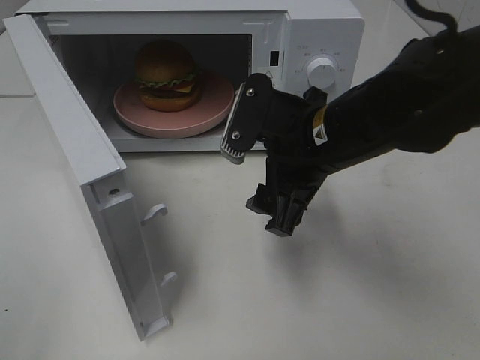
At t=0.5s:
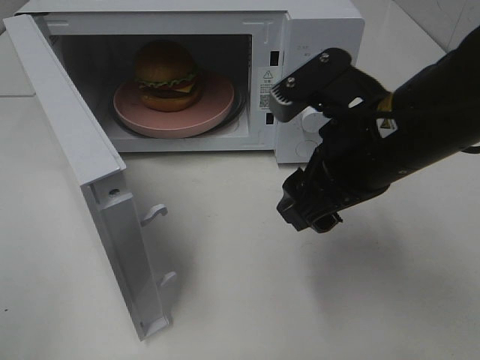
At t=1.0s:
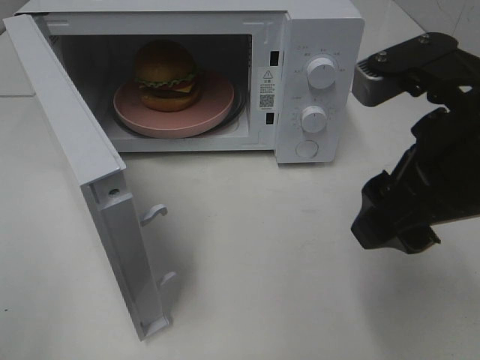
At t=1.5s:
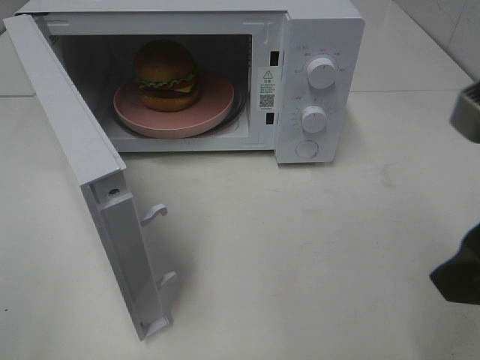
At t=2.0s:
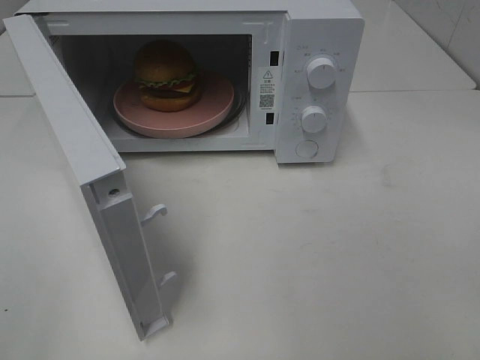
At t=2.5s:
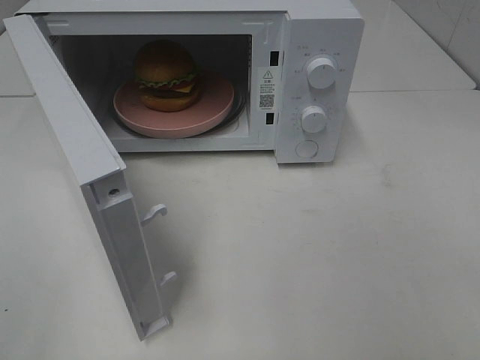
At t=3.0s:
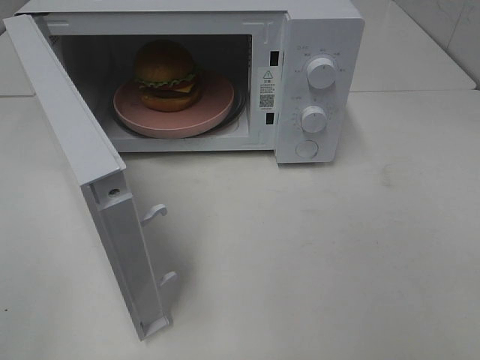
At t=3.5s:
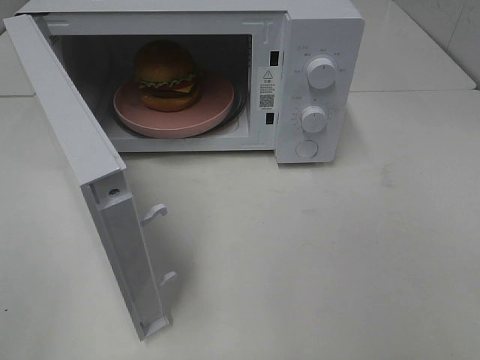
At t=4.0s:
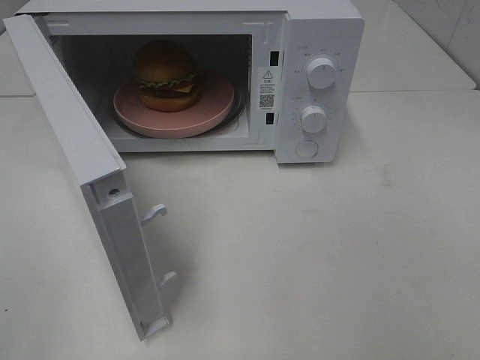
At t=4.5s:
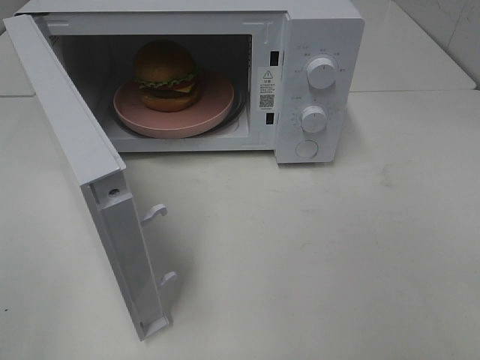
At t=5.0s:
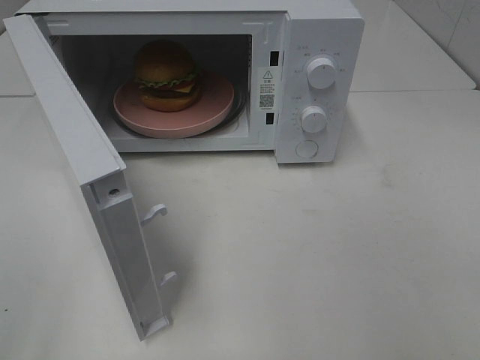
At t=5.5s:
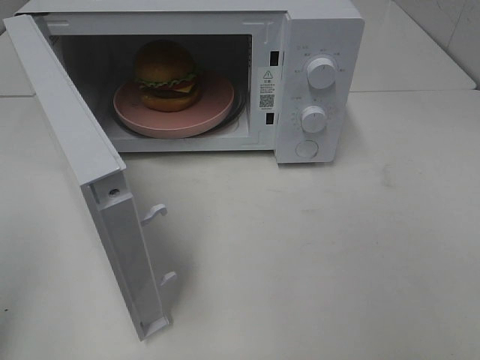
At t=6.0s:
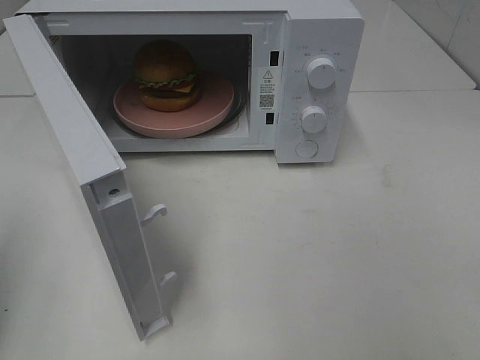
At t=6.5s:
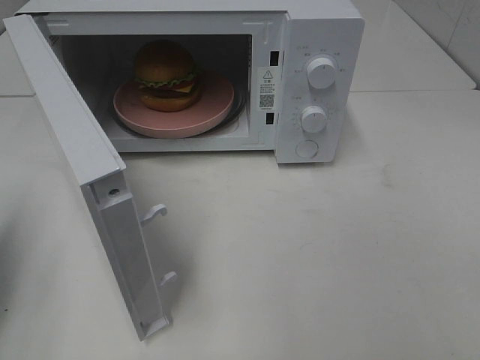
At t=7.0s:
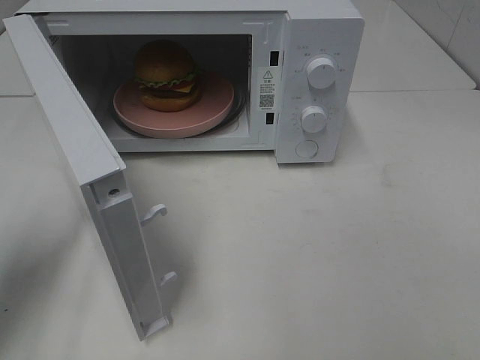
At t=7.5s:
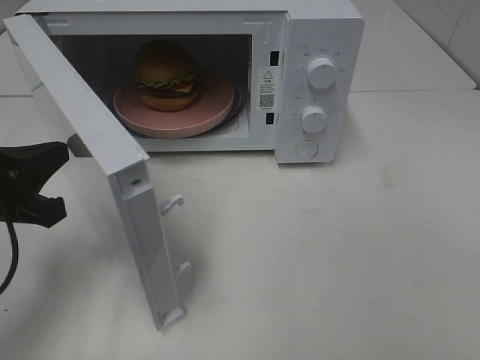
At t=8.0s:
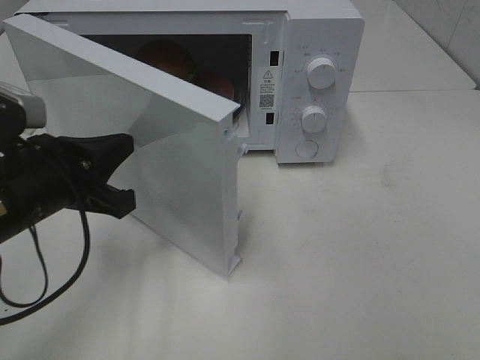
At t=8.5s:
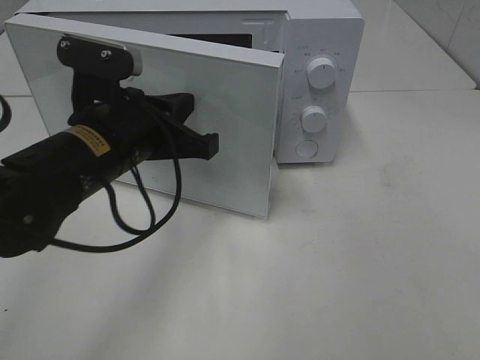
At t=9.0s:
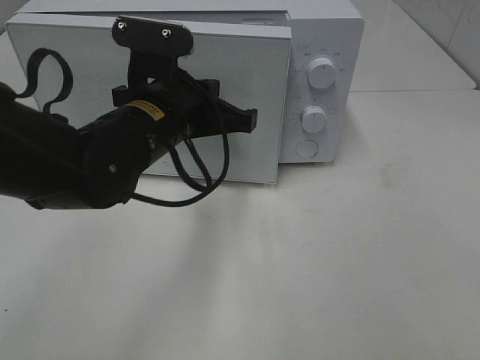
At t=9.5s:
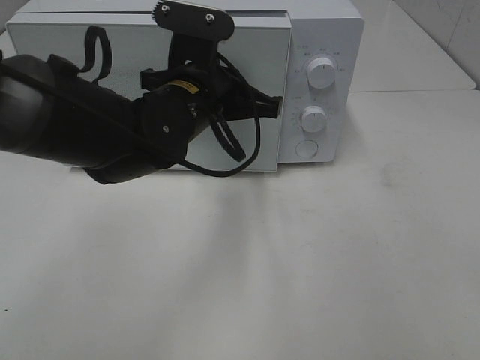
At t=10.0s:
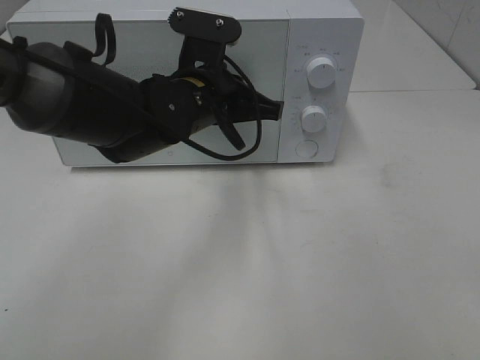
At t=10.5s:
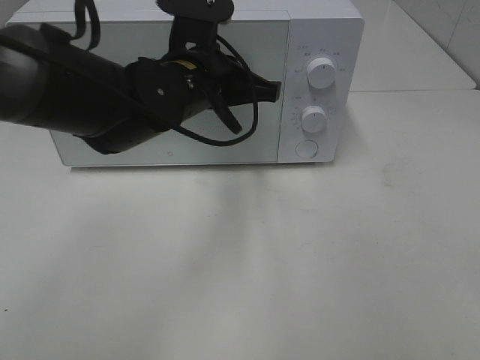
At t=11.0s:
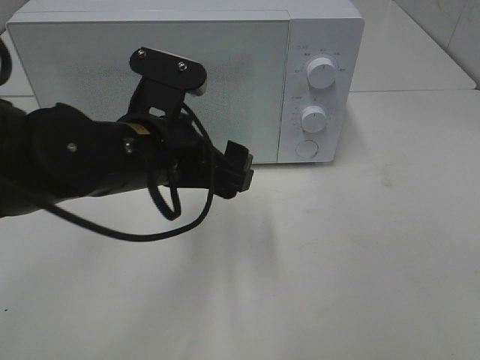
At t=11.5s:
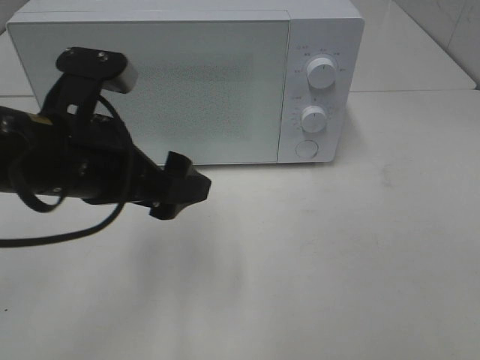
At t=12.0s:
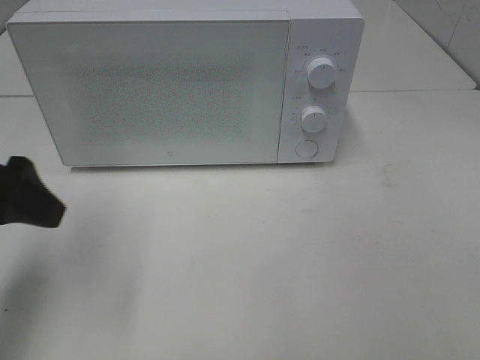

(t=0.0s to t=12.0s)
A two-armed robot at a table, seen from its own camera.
Task of the whole recording: Heat the burger.
Step, t=0.0s - t=11.0s: Left hand: close the microwave door.
t=0.0s - t=2.0s: The right gripper heads backward and to the right, covering roughly 25 cm.
t=6.0s - t=8.0s: The left gripper travels to the right, downward and forward by about 20 cm.
t=8.0s - t=10.0s: The left gripper is displaced to the right and forward by approximately 20 cm.
t=10.0s - t=12.0s: The left gripper travels to the left and backward by roughly 25 cm, and opens its fingers.

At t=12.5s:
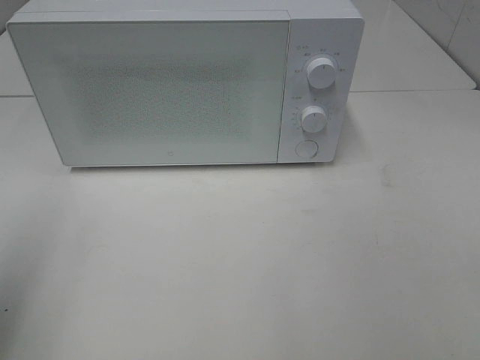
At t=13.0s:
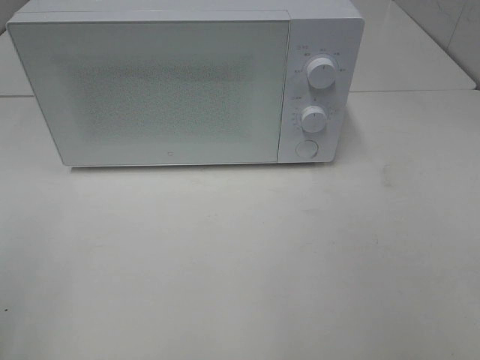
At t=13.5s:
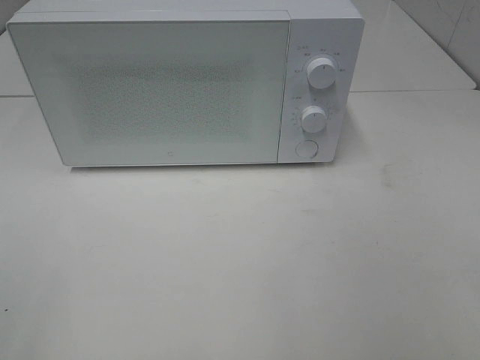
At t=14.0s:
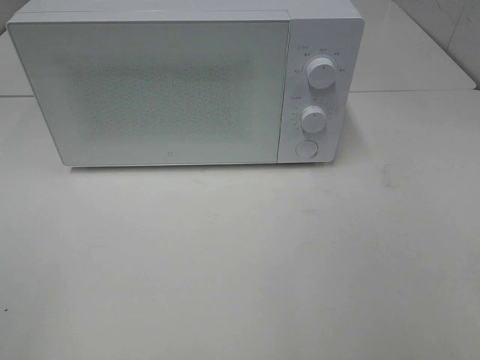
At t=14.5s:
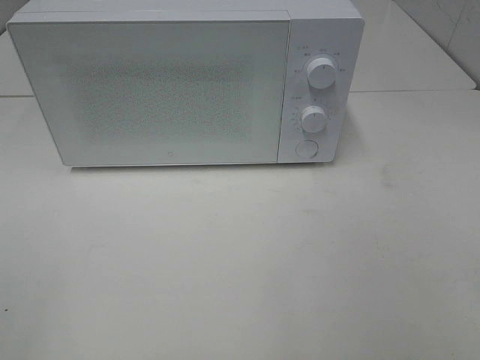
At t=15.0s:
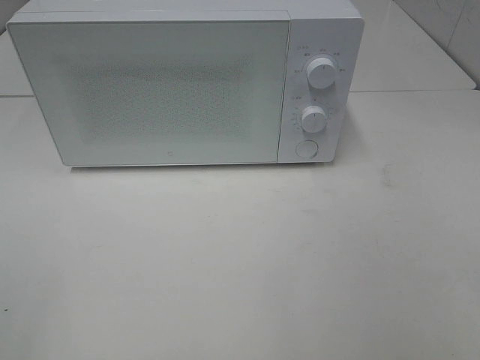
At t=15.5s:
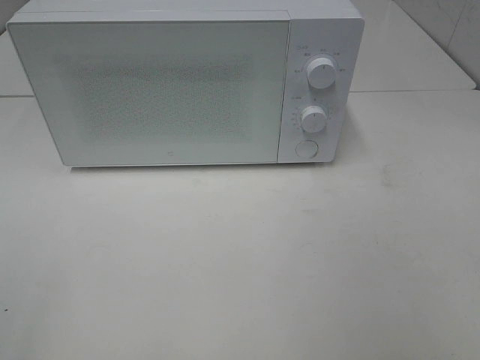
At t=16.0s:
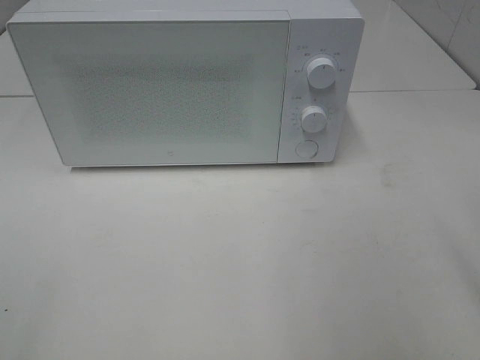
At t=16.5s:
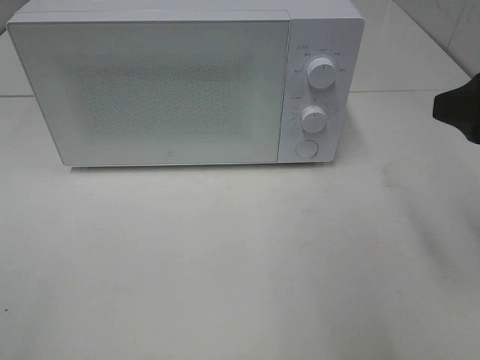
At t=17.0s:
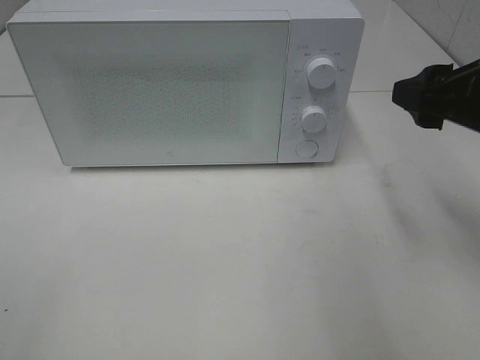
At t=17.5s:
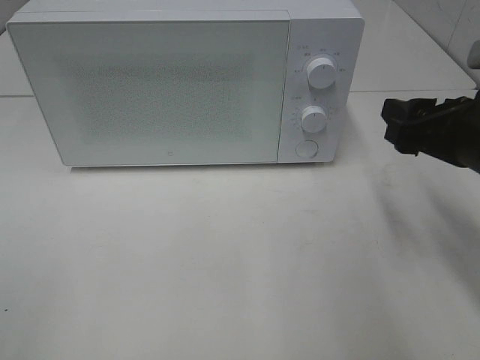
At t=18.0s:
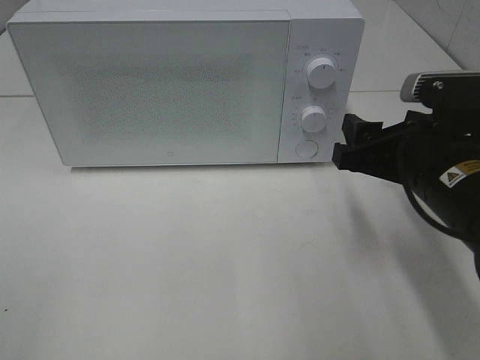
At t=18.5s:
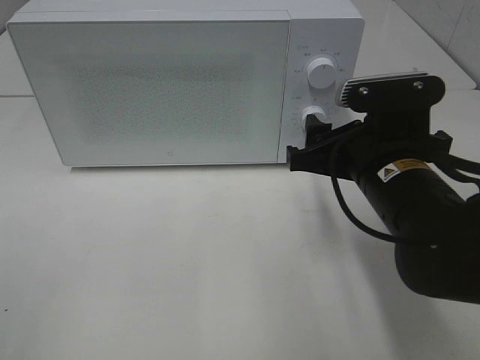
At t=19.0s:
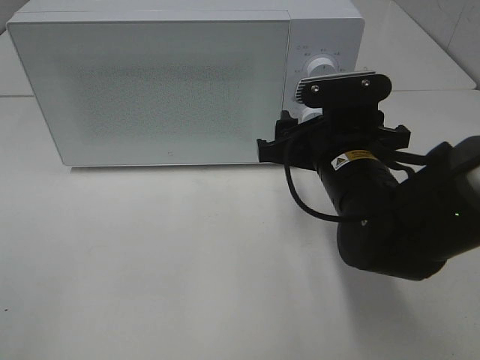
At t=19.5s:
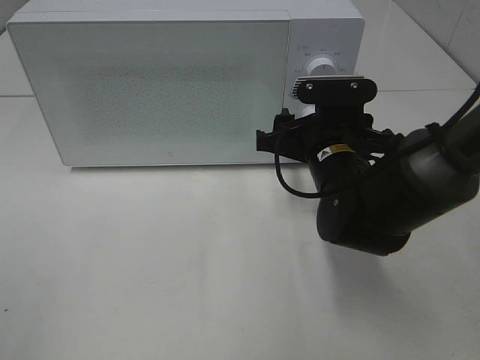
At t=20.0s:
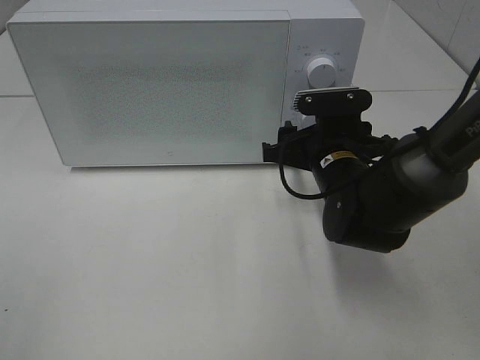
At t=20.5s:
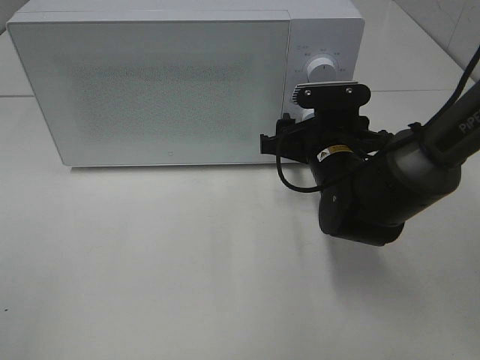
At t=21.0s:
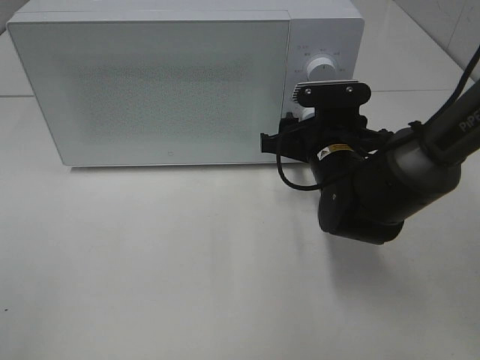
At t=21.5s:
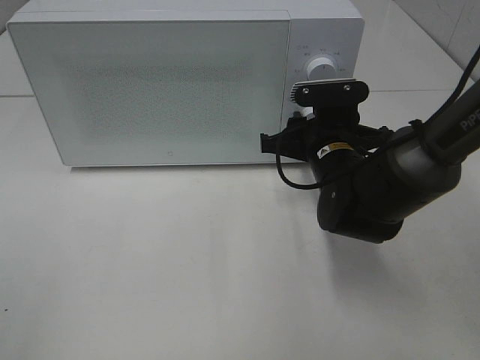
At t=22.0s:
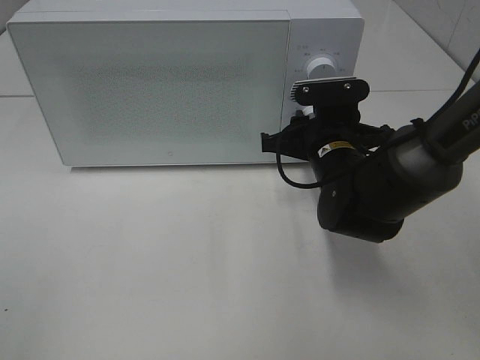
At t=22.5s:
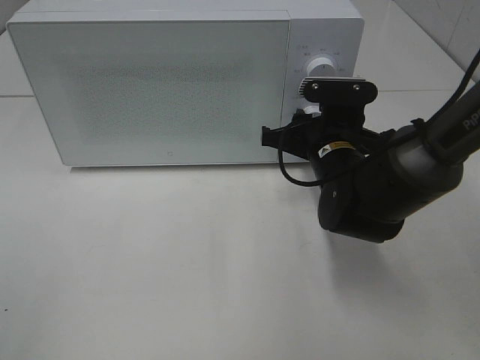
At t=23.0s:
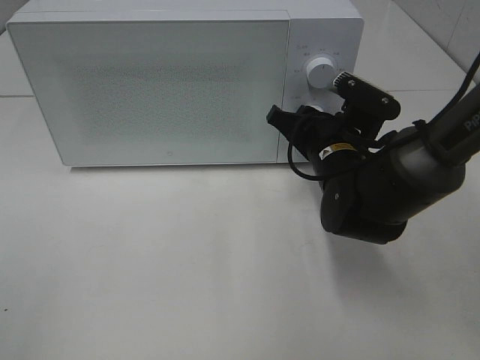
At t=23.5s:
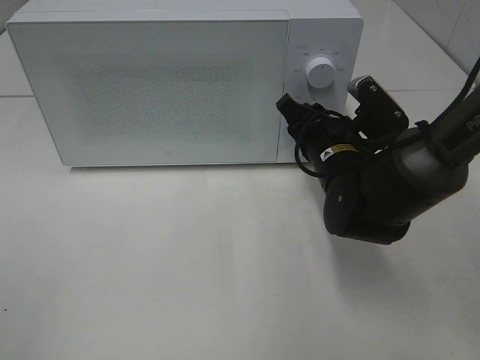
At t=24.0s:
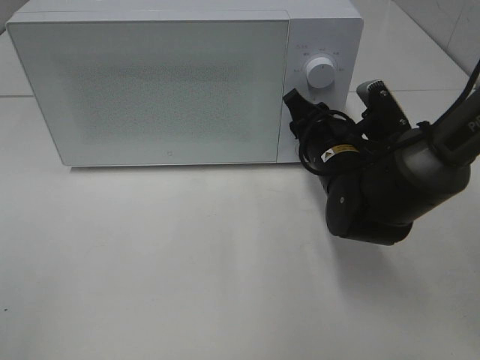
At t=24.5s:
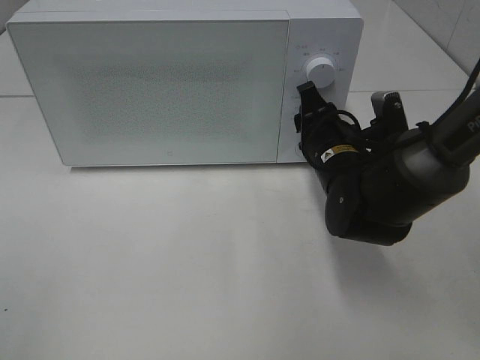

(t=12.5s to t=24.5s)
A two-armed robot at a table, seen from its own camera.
Task of the whole recording: Heat the burger.
t=12.5s - t=14.5s: The left gripper moves backward, about 10 cm.
t=14.5s - t=16.5s: The right gripper is displaced forward by about 20 cm.
t=16.5s - t=18.5s: The right gripper moves downward, to the left and forward, about 15 cm.
t=18.5s - t=20.5s: The right gripper moves forward and downward, roughly 10 cm.
t=20.5s - t=22.5s: The grippers stay close to where they were, moving slightly.

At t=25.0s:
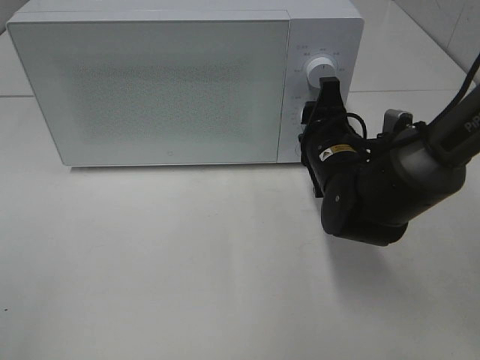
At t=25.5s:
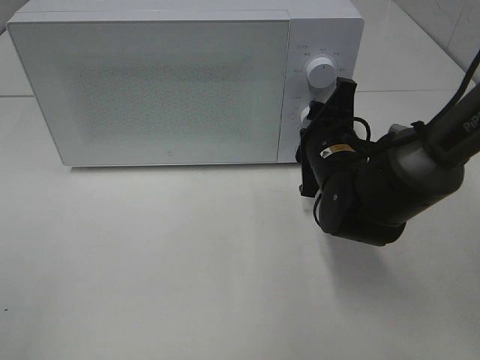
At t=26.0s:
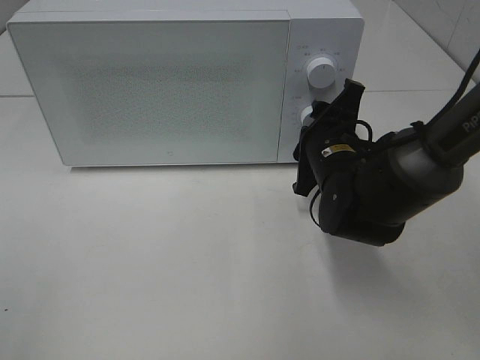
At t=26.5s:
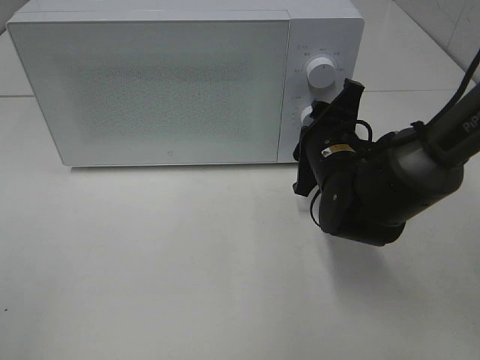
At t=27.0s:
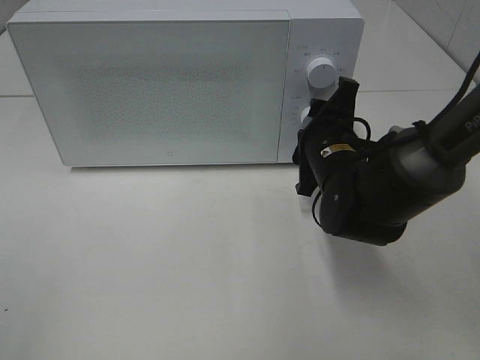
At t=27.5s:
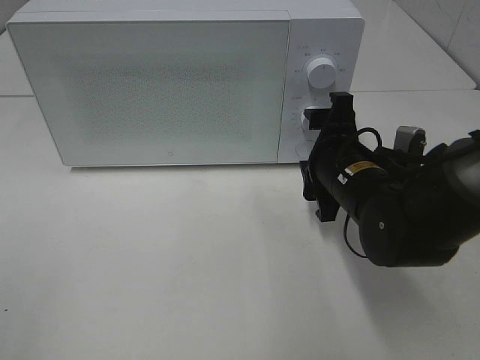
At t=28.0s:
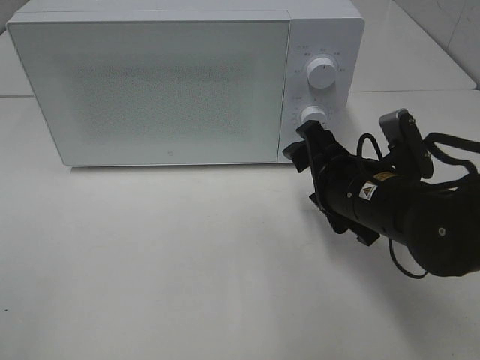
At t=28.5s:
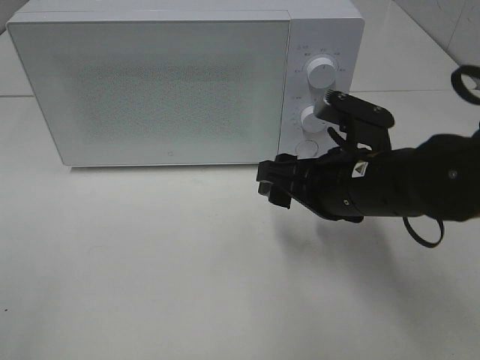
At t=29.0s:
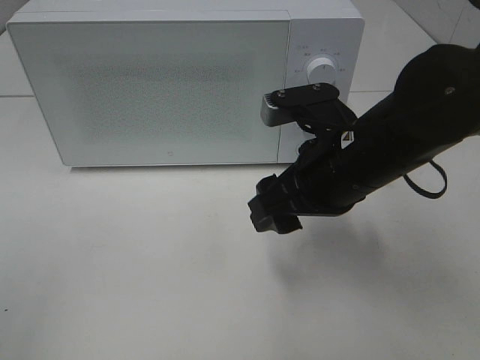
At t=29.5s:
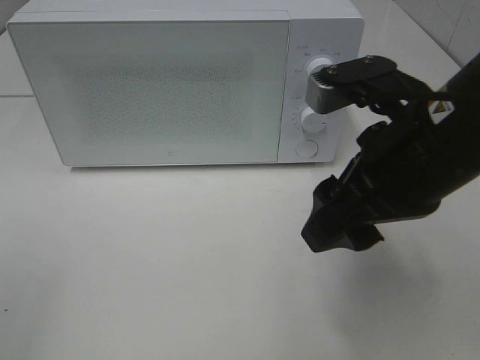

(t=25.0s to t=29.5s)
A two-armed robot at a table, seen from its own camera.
Task of the whole recording: Heat the burger.
Step, t=25.0s - t=27.0s: Right hand: twist timer button.
t=27.0s - t=29.5s: The right gripper goes roughly 20 cm upward and backward.
